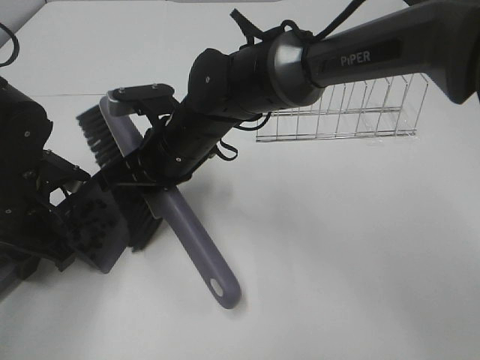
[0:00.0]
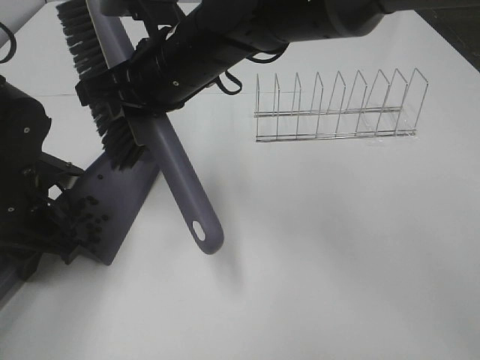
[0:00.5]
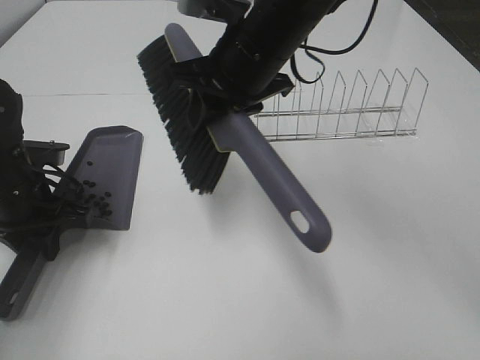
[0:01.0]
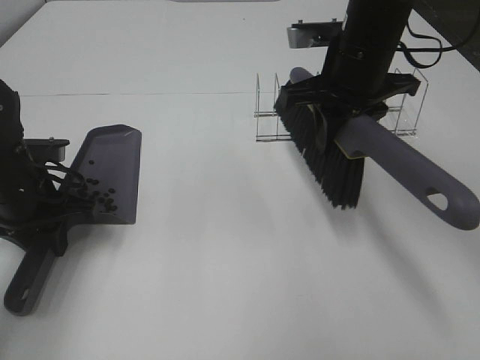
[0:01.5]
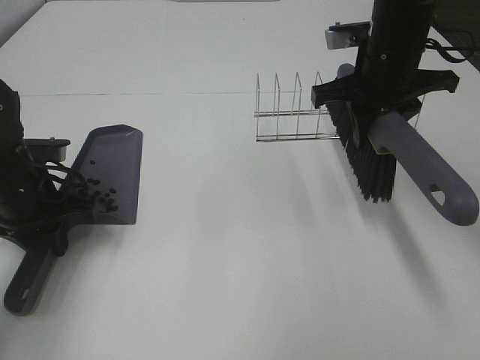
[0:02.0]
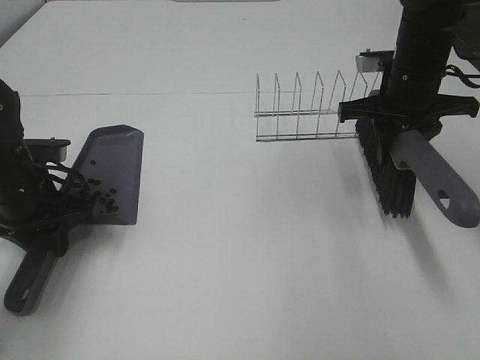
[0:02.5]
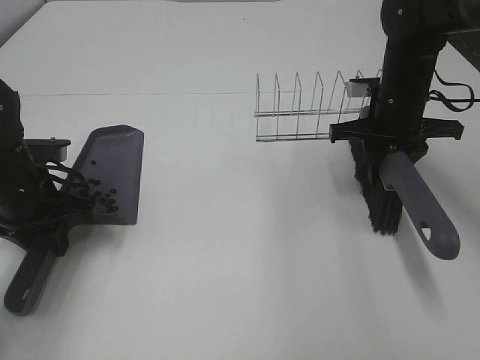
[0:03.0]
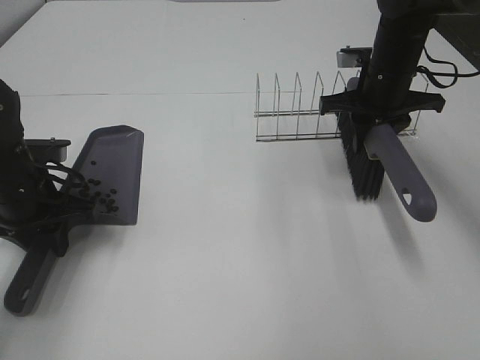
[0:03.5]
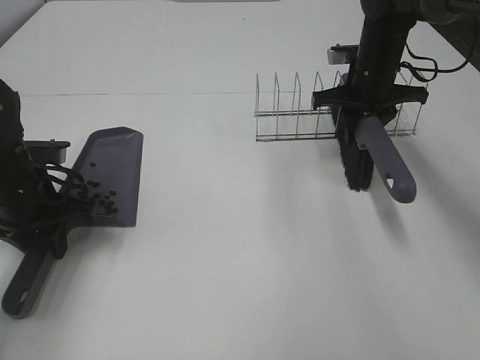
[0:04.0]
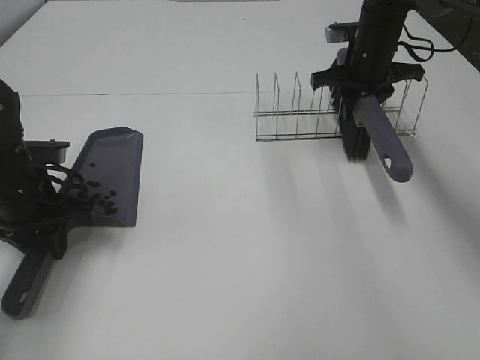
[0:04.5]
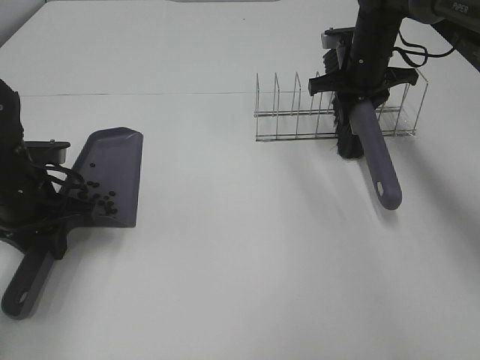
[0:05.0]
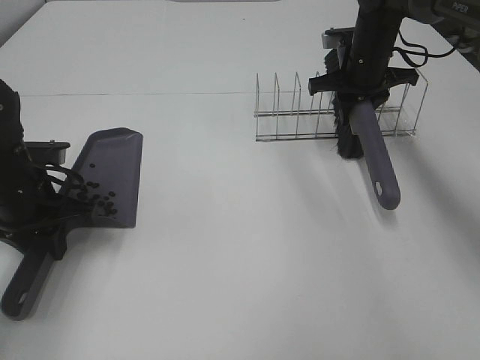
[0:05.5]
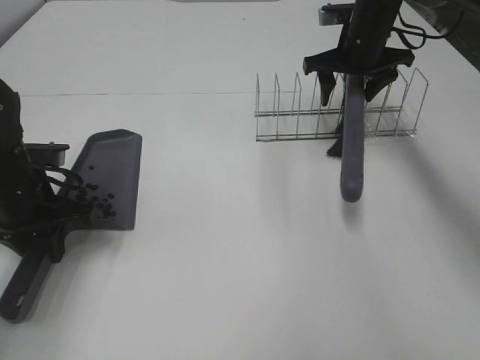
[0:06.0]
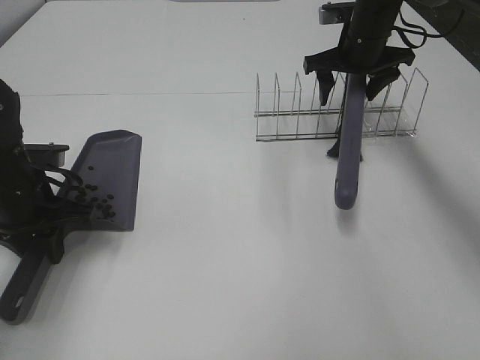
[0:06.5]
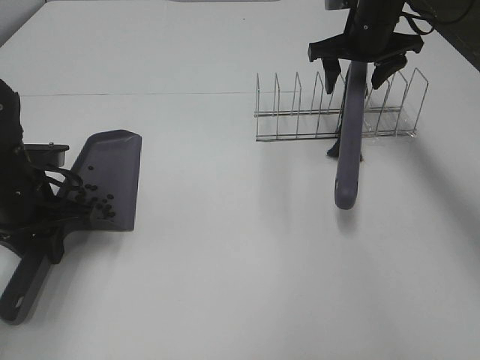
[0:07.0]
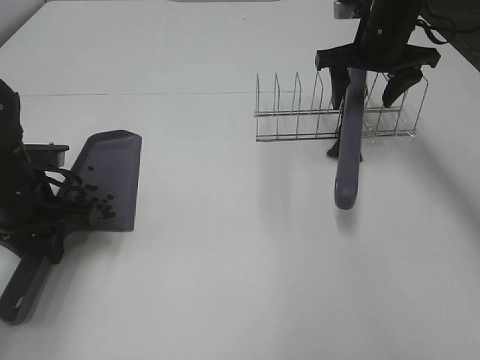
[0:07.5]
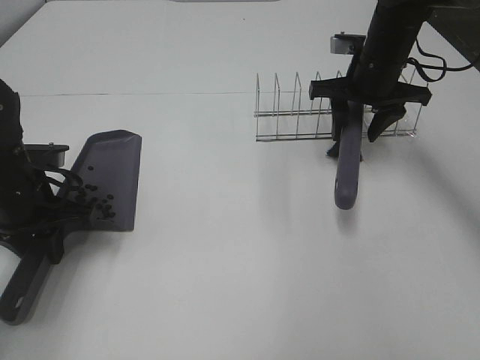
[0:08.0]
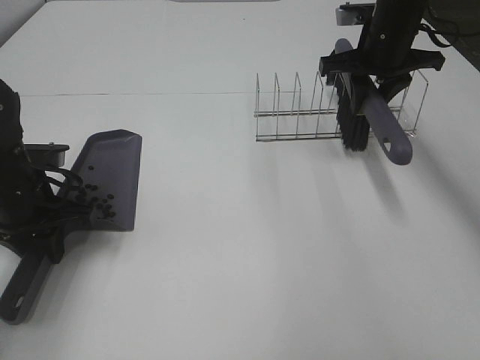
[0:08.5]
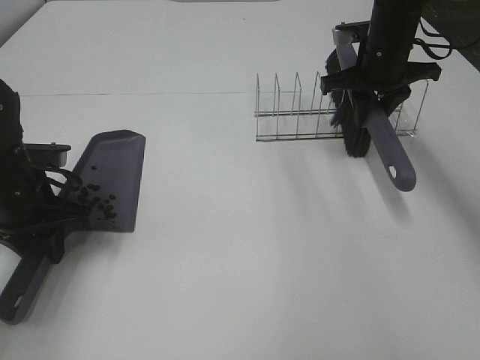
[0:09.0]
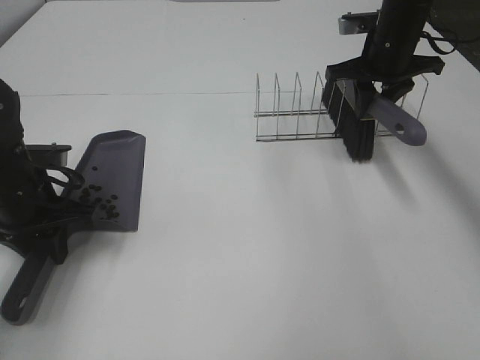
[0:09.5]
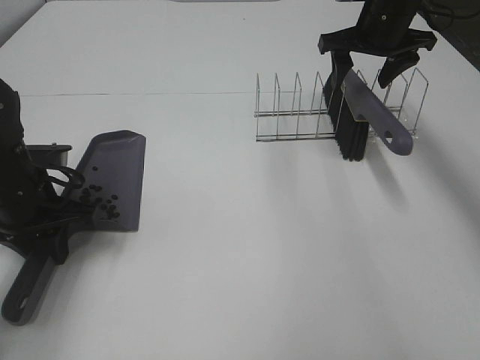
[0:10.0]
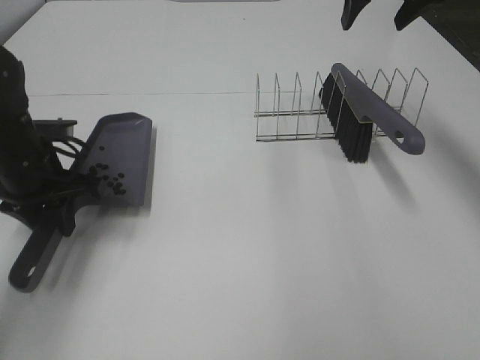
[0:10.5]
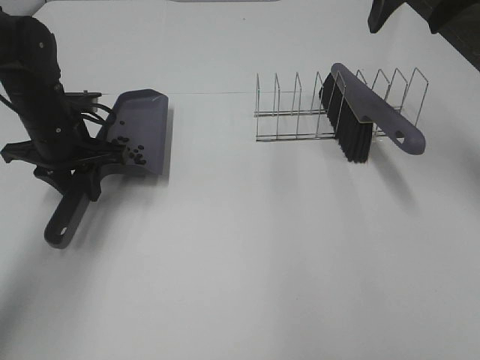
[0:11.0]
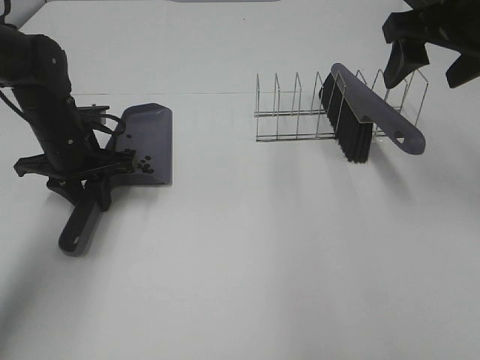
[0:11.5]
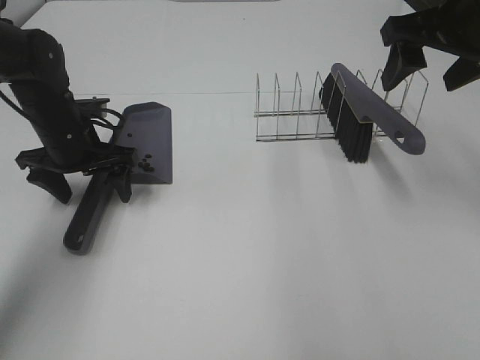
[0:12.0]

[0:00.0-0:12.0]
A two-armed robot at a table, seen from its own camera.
Task of the whole recording: Sweep Coffee Bean.
Step, 0:01.0 to 0:10.0: Right hand:place the broom on the rack.
0:00.0 to 0:02.0: The right gripper moves to the right, approximately 25 cm.
0:02.0 to 0:04.0: The right gripper shifts about 10 cm forward and downward.
0:04.0 to 0:06.0: The right gripper opens.
0:06.0 to 0:08.0: The right gripper shifts approximately 5 cm backward, and closes up.
0:08.0 to 0:10.0: The right gripper shifts by approximately 5 cm, and opens.
0:10.0 to 0:12.0: The left gripper heads forward, covering some 10 cm, and opens up; the right gripper goes some 20 cm backward and upward.

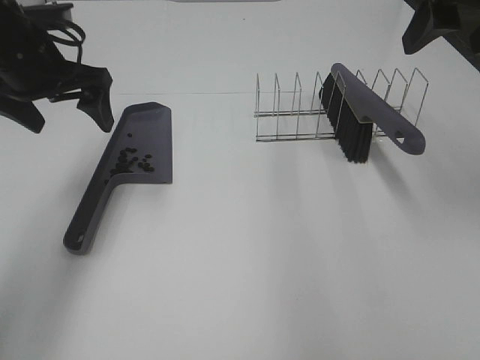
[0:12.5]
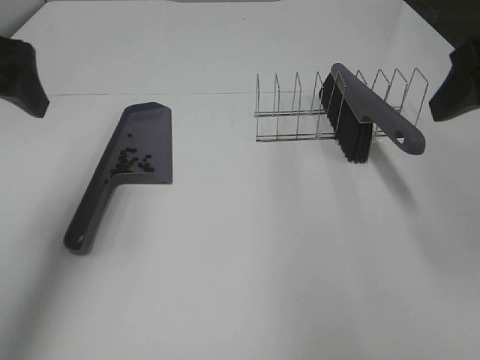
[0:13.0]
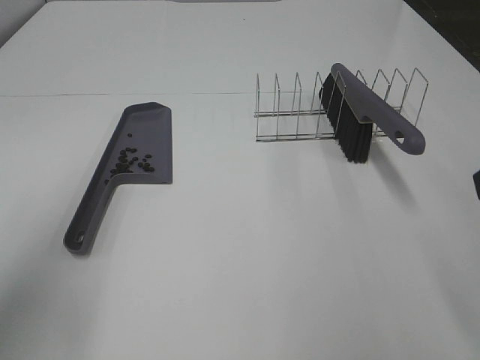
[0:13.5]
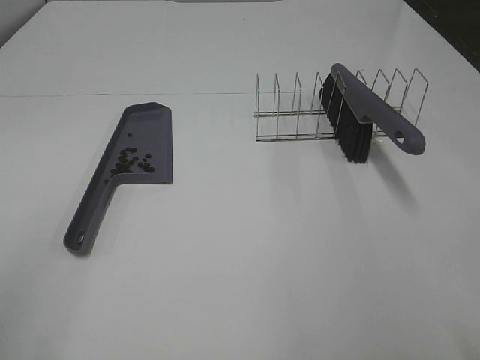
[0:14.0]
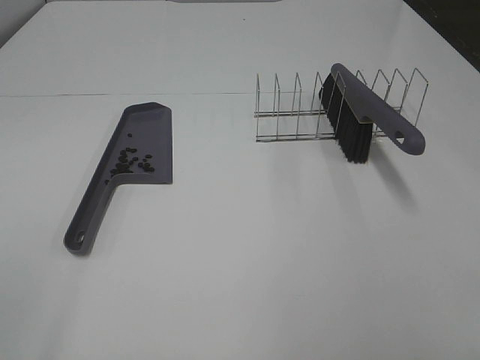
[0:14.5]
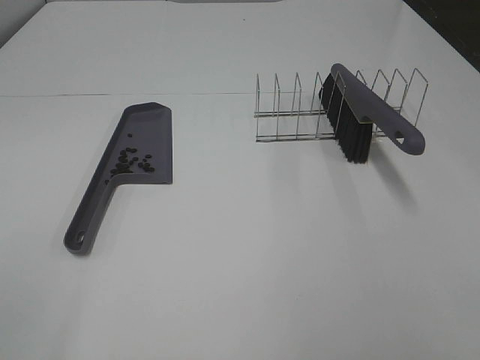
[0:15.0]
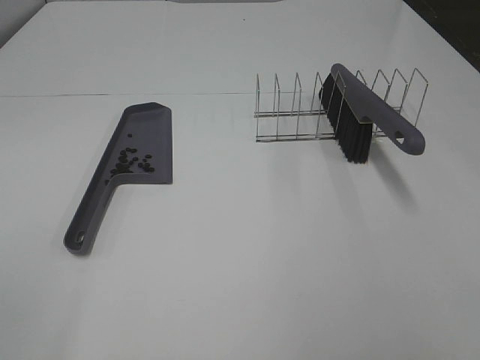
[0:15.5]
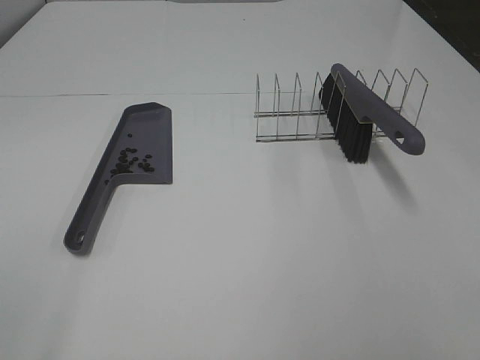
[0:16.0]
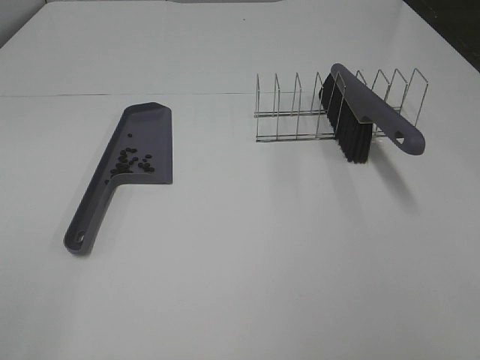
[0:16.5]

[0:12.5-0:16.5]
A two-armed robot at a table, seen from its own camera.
Task of the whole recording: Sweep Coffee Bean.
0:12.5 to 0:14.5: The grippers both shift backward by roughly 30 cm.

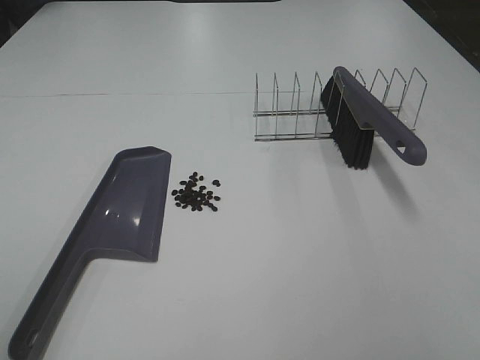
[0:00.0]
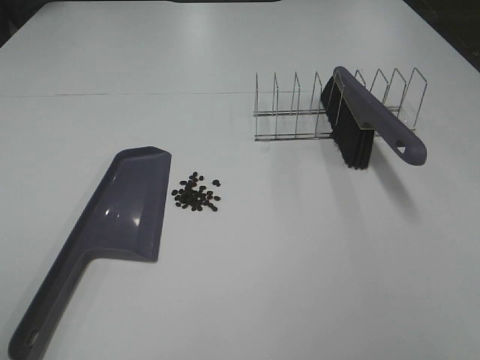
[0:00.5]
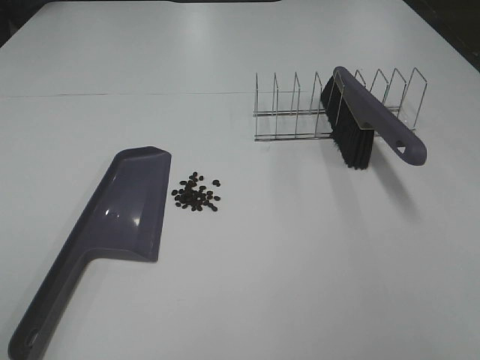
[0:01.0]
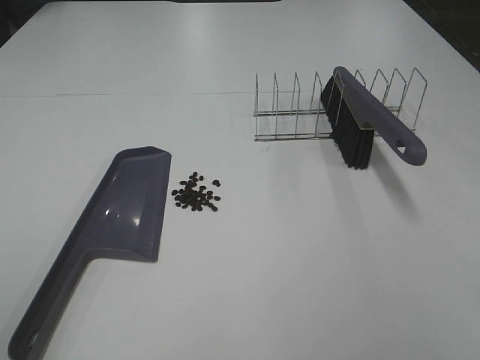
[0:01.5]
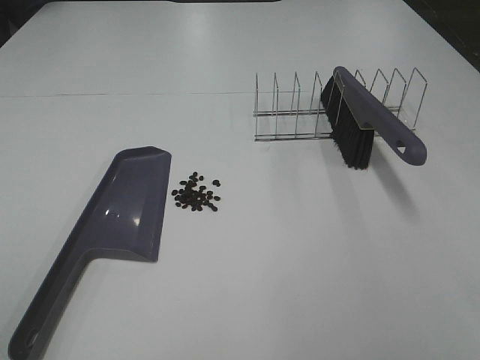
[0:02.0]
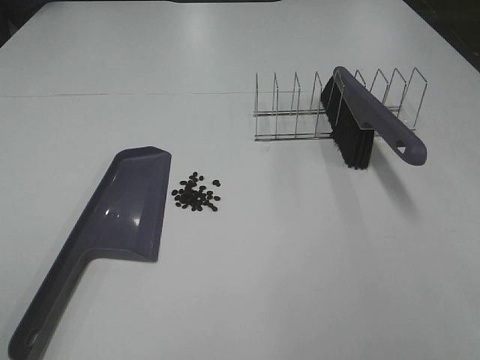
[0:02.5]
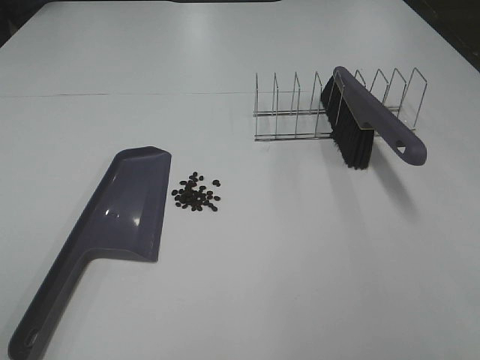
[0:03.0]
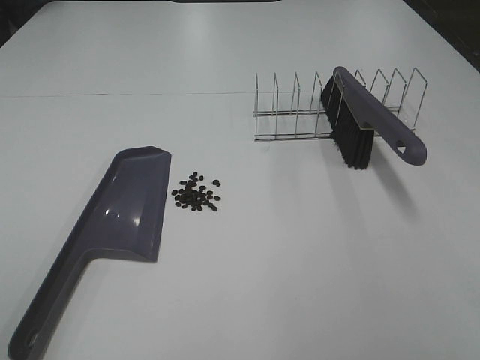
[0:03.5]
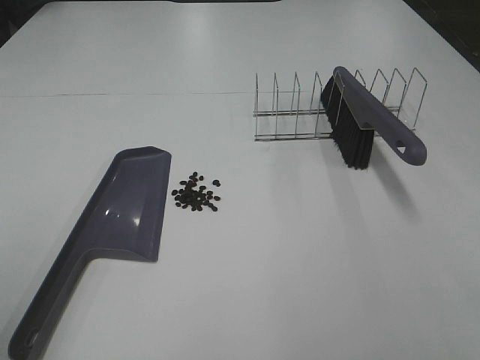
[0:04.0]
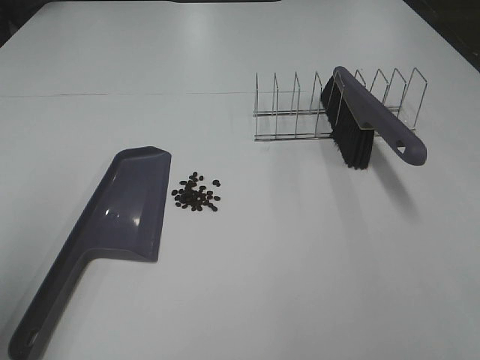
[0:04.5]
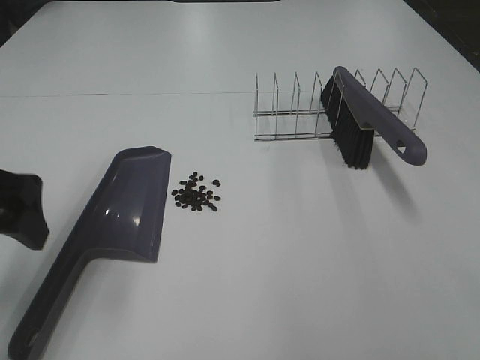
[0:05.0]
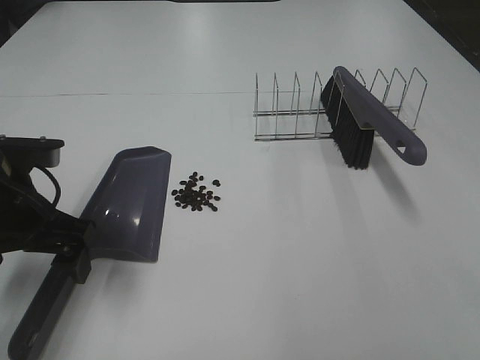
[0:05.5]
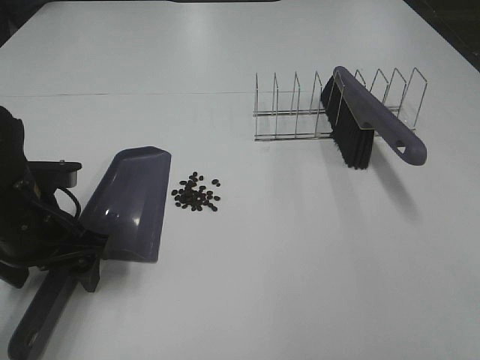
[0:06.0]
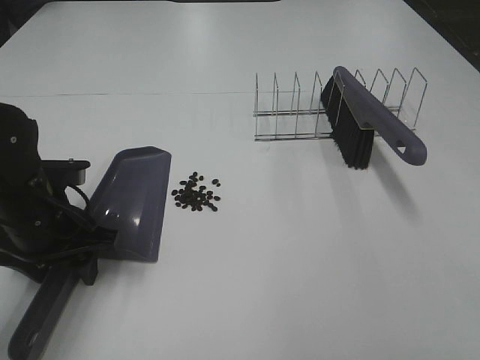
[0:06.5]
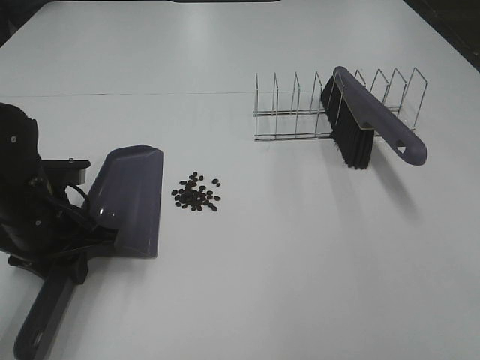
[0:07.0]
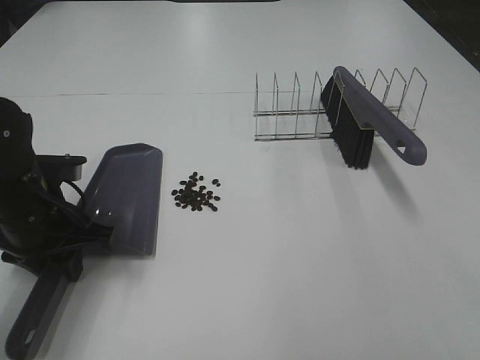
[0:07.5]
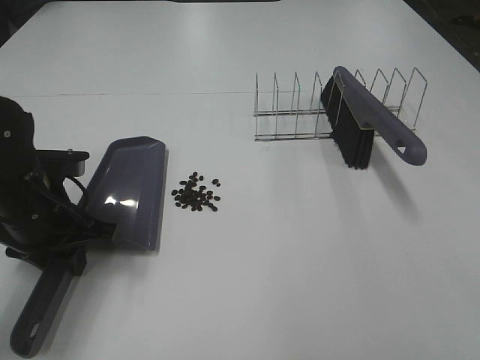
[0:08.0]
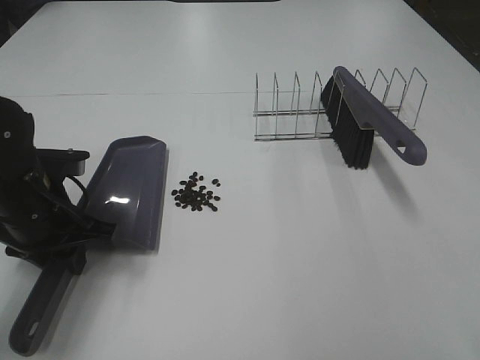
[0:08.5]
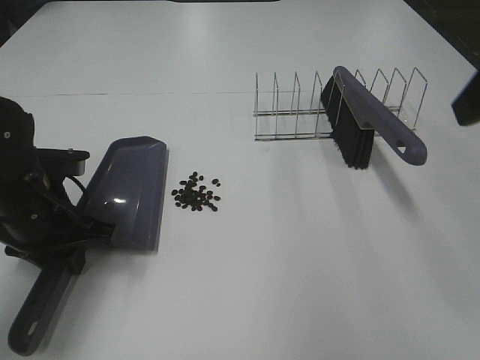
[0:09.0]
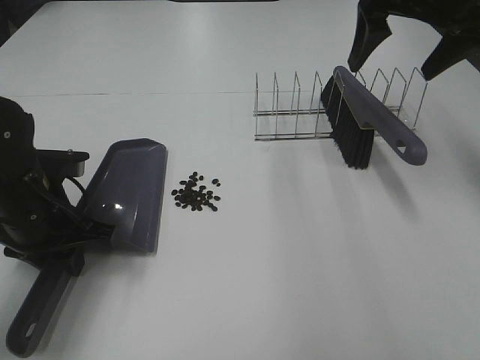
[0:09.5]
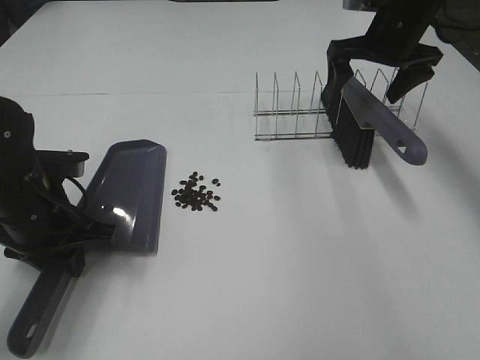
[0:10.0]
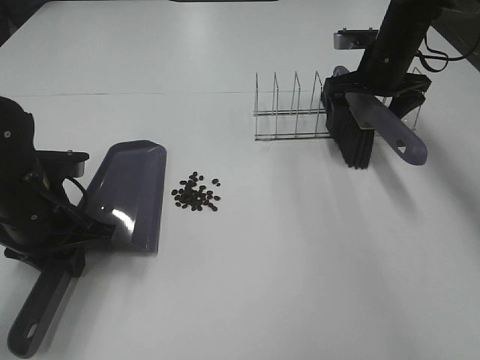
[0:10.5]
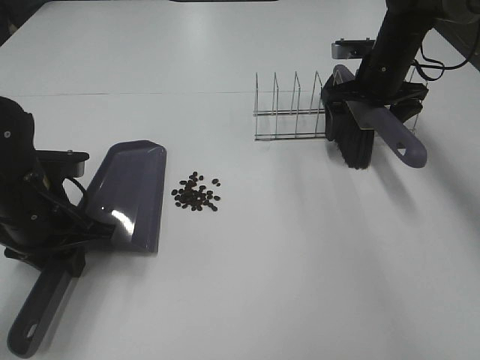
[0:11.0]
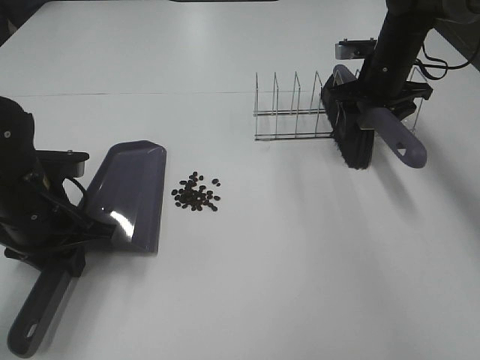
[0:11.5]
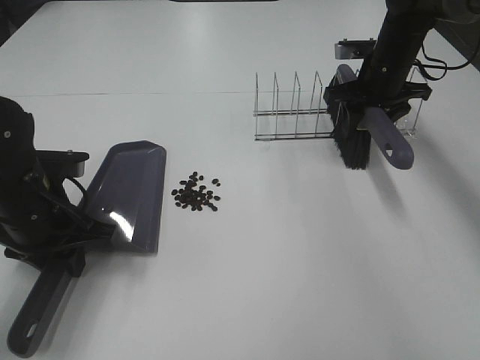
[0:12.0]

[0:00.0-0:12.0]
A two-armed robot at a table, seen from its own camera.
Task of the whole recording: Sweep Coffee Bean.
Step, 0:00.0 to 0:06.5: Left hand: grab the dustpan.
0:04.0 to 0:06.0: The left gripper is displaced forward, downward and to the right by approximately 30 cm.
0:06.0 to 0:08.0: The left gripper closes.
0:08.0 to 0:10.0: The right gripper shifts about 50 cm forward.
0:10.0 to 0:12.0: The right gripper travels downward by about 5 cm, and closes.
